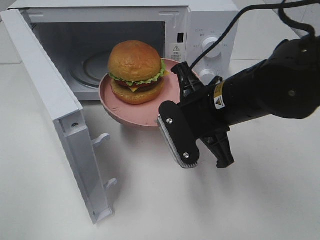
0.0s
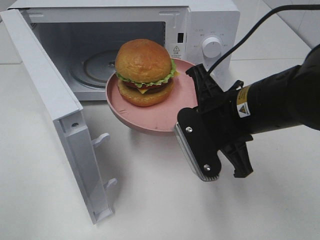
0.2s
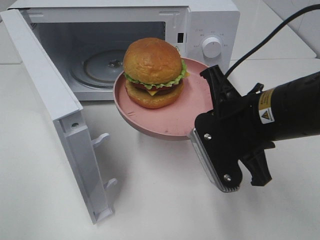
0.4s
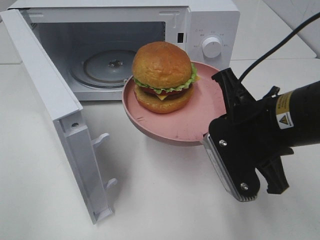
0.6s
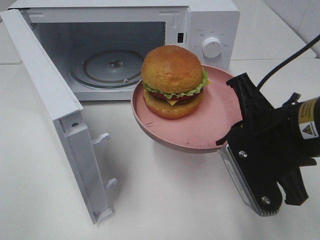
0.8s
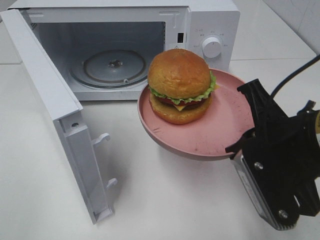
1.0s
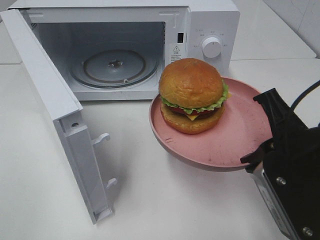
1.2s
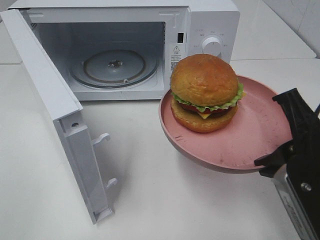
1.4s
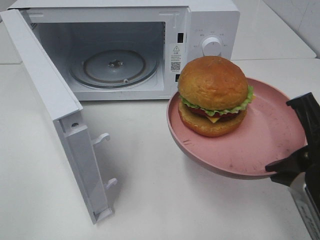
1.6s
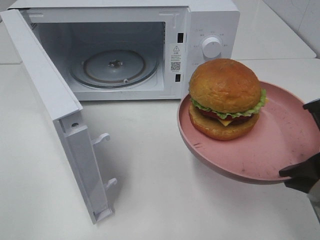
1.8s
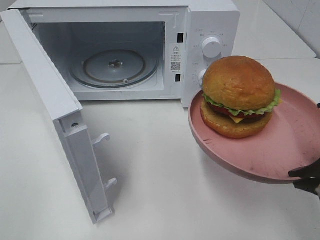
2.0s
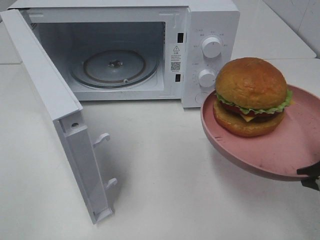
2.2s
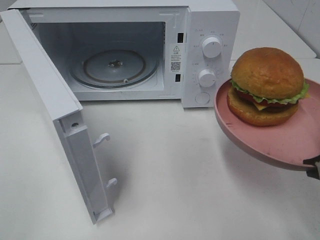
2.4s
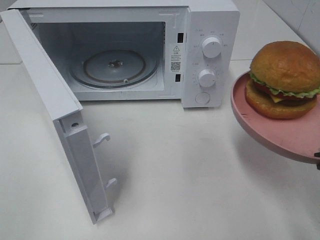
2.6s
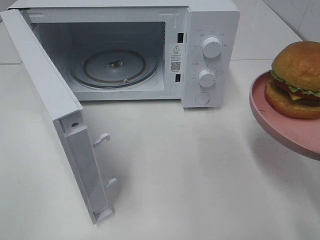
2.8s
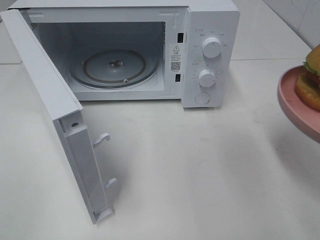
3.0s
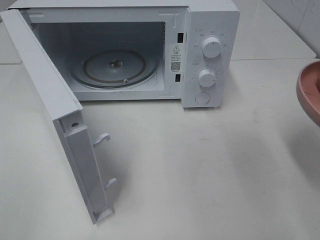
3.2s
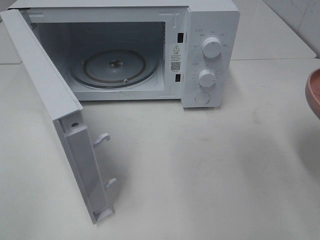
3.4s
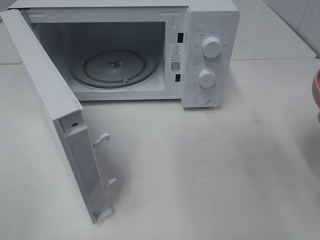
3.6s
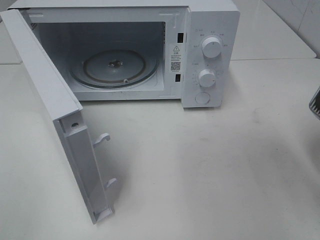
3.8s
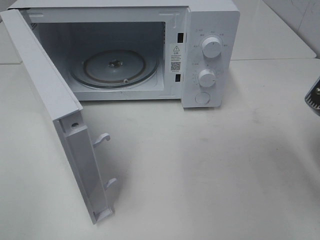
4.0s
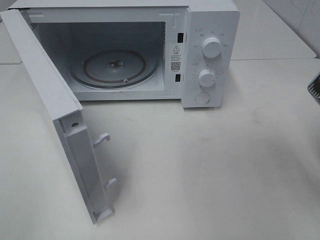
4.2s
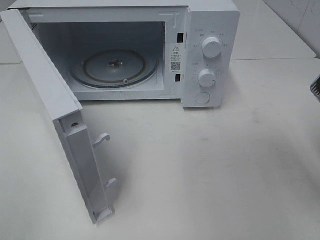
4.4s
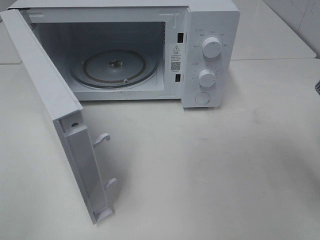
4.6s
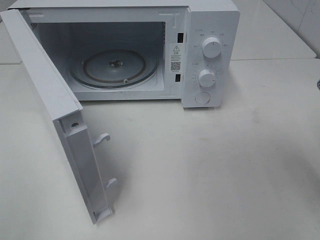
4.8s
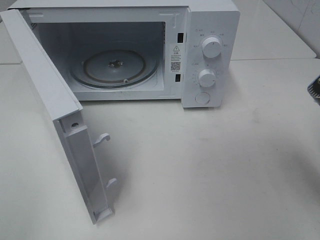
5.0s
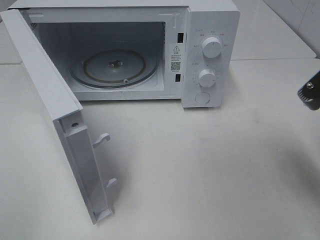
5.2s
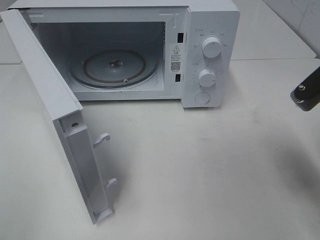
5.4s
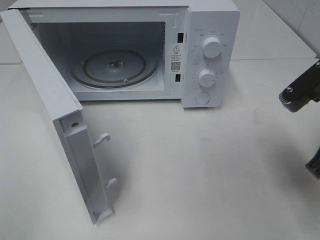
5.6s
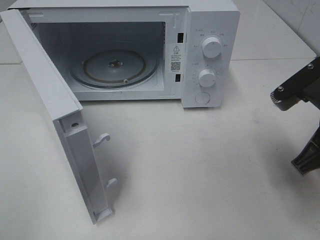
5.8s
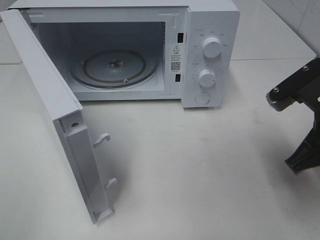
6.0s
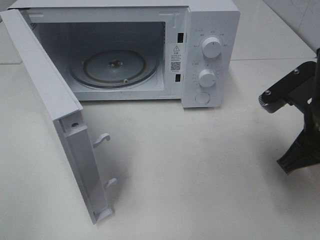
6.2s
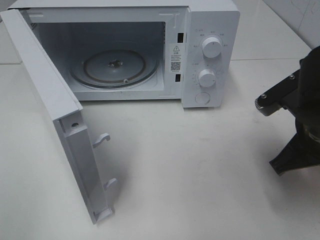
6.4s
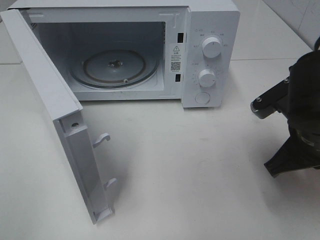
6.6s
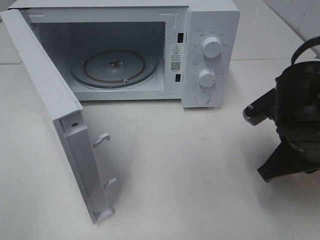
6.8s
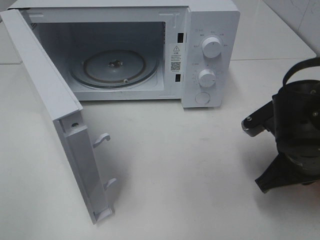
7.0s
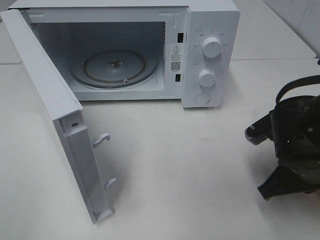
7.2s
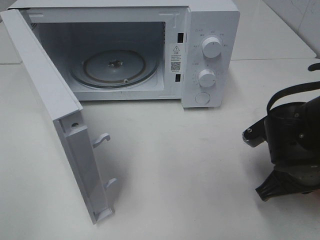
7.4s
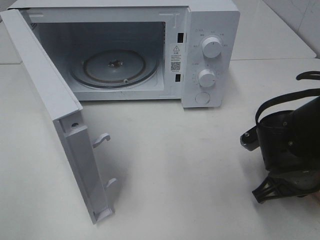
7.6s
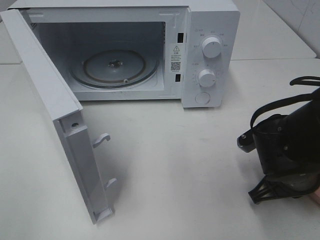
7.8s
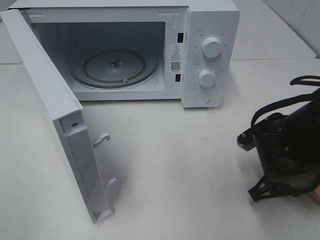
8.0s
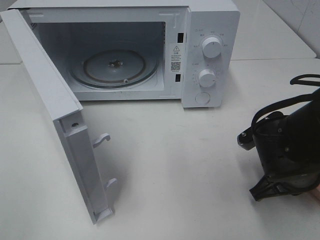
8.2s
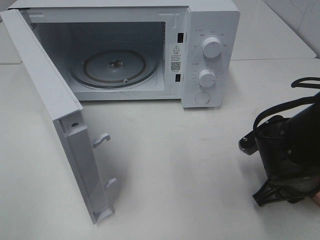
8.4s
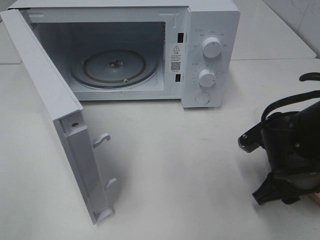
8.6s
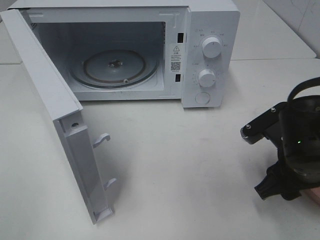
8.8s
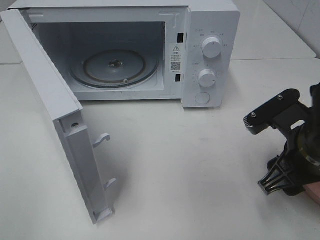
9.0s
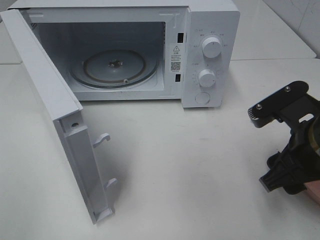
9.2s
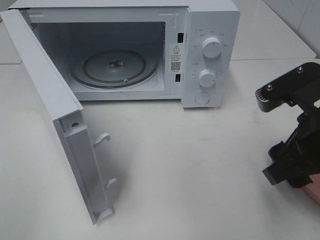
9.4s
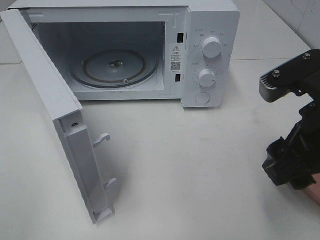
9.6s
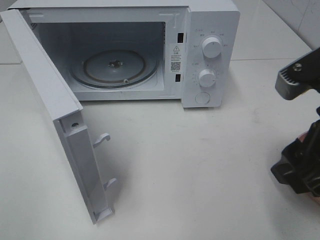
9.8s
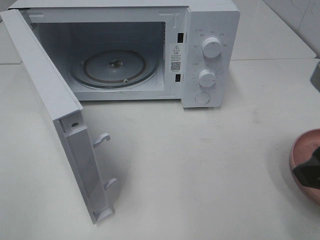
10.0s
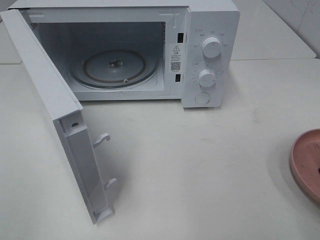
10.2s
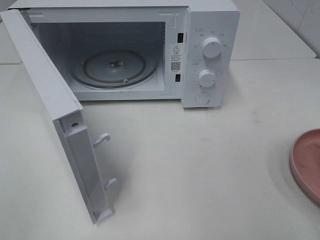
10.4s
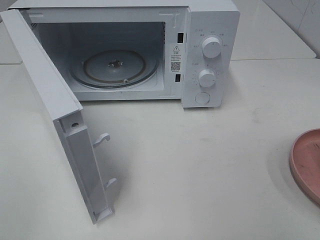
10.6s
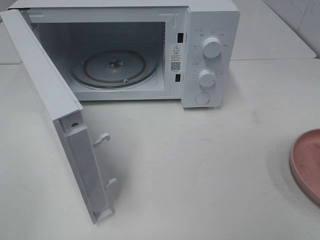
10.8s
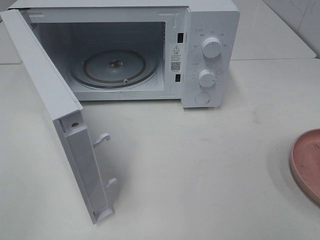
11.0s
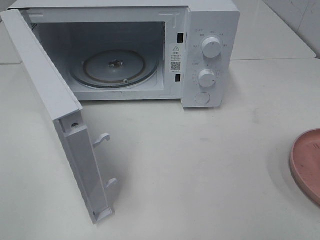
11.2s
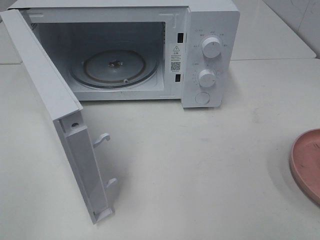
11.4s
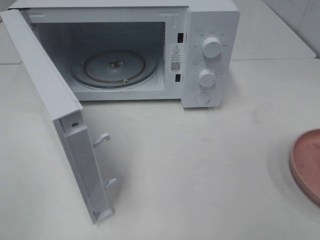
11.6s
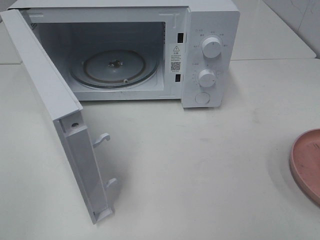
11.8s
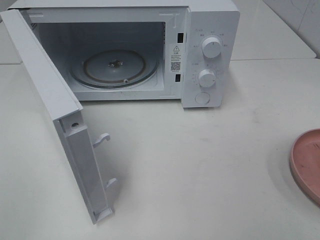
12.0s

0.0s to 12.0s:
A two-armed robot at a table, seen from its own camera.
Task of the whole recording: Heat the burger.
Step, 0.0s to 8.4s: Right hand: place the plate on the table.
0.0s to 1.6s: The right gripper heads backward and to the right, covering roughly 15 cm.
1.6s to 3.0s: The right gripper moves some 5 cm.
4.4s to 6.0s: The right gripper heads downward, covering some 5 cm.
6.0s to 7.6s: The right gripper shifts about 10 cm downward.
7.6s to 9.0s: The right gripper travels upward by approximately 5 cm, and opens its fingers.
9.0s to 10.4s: The right gripper goes approximately 20 cm upward, backward and to the right.

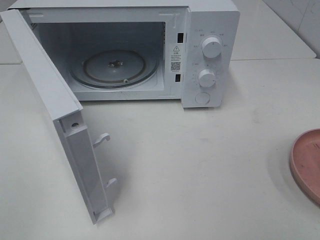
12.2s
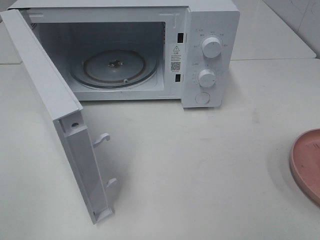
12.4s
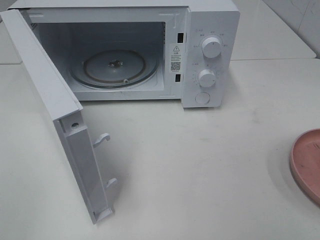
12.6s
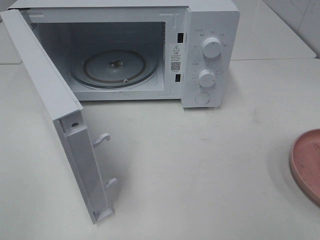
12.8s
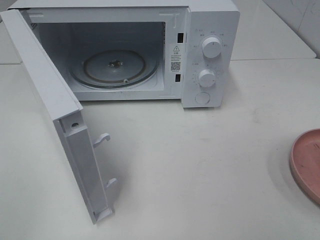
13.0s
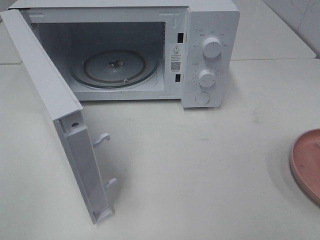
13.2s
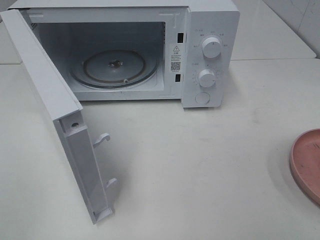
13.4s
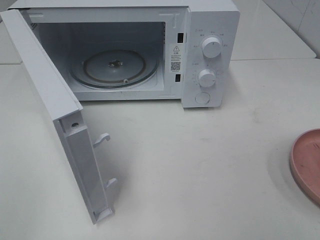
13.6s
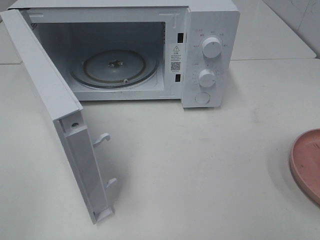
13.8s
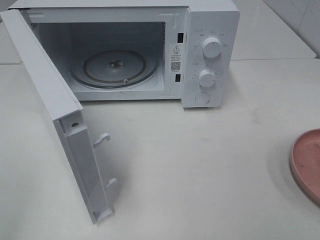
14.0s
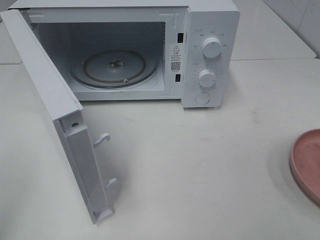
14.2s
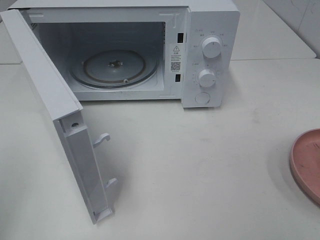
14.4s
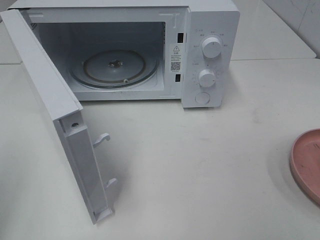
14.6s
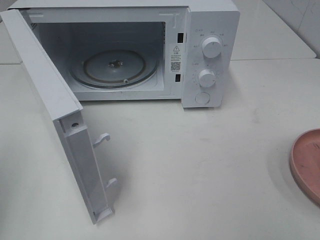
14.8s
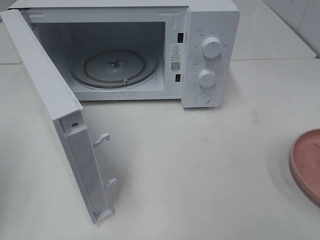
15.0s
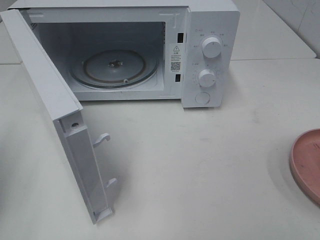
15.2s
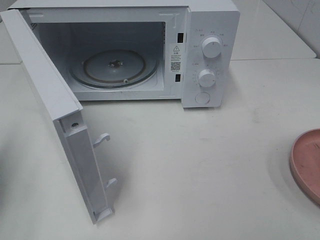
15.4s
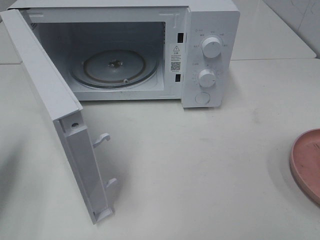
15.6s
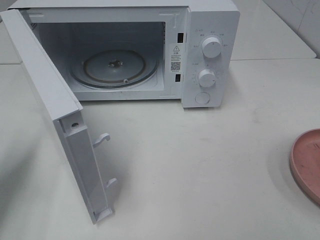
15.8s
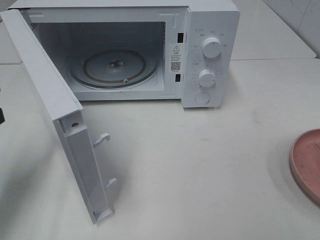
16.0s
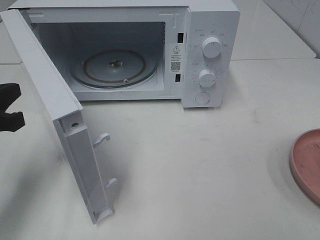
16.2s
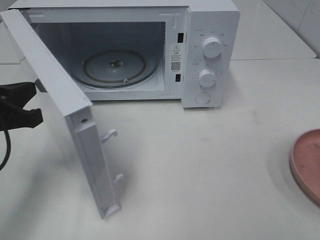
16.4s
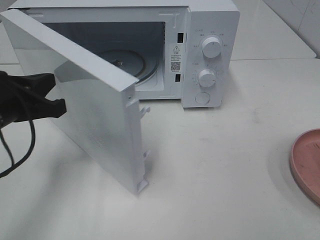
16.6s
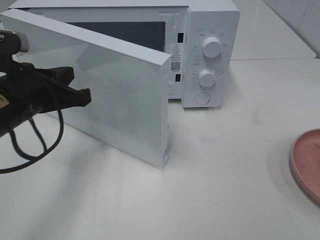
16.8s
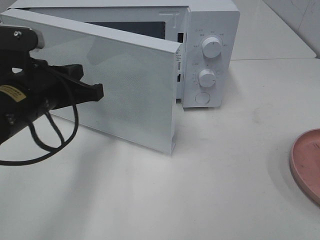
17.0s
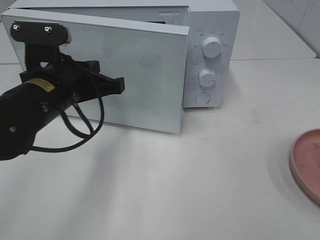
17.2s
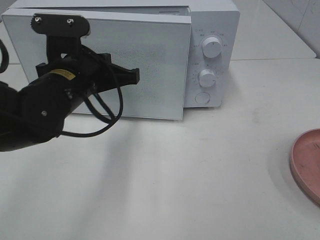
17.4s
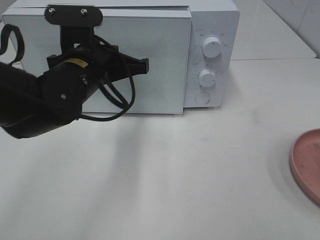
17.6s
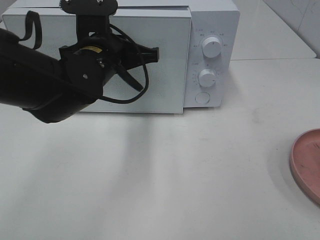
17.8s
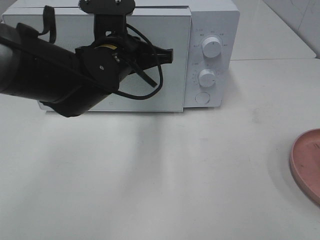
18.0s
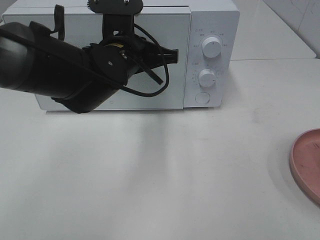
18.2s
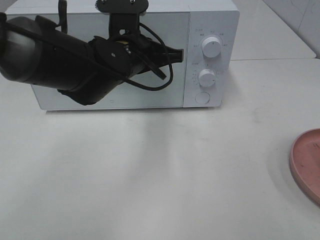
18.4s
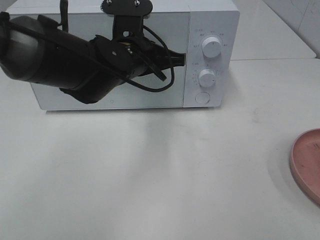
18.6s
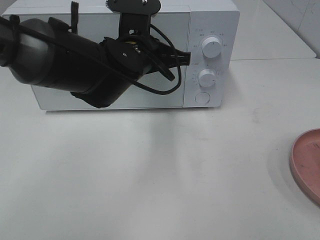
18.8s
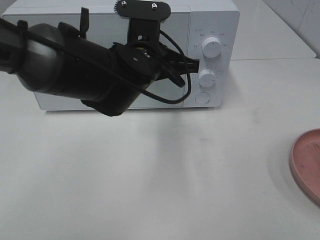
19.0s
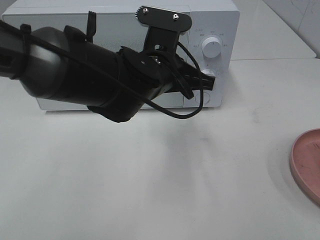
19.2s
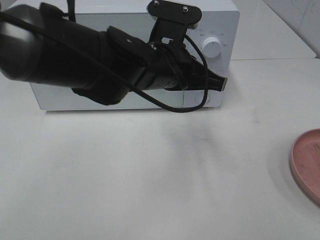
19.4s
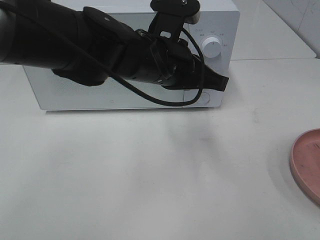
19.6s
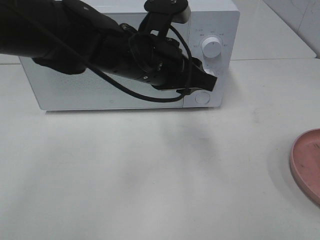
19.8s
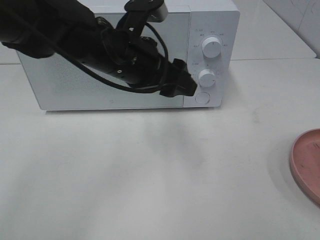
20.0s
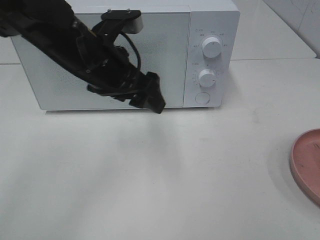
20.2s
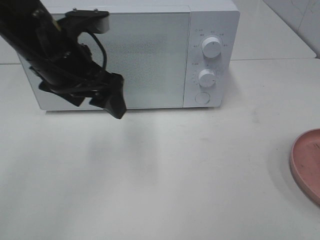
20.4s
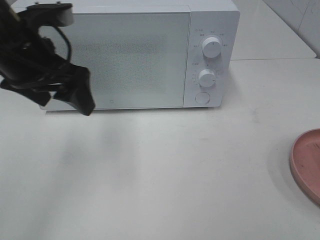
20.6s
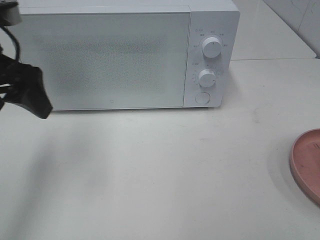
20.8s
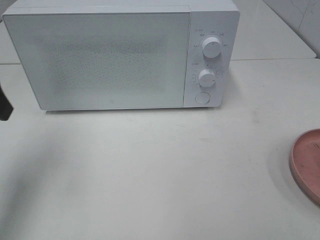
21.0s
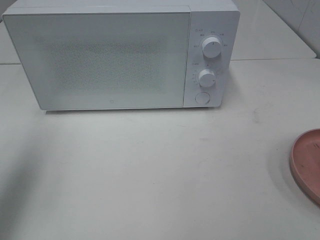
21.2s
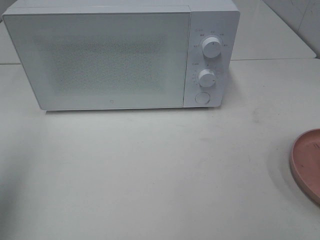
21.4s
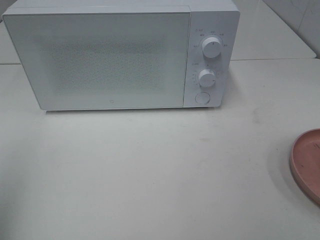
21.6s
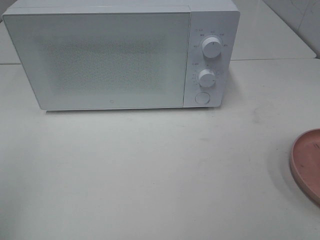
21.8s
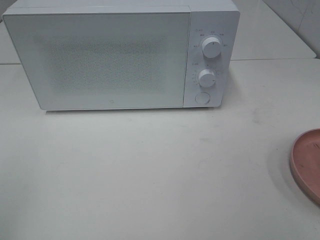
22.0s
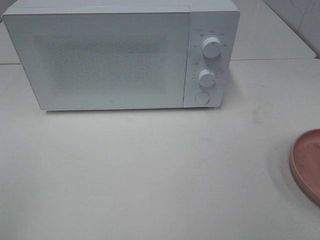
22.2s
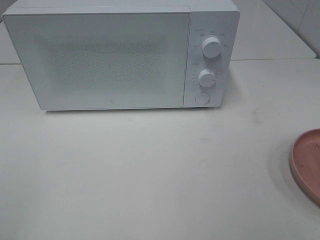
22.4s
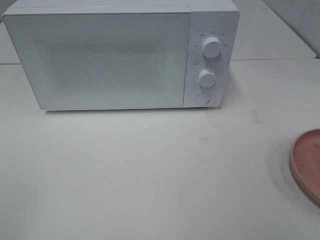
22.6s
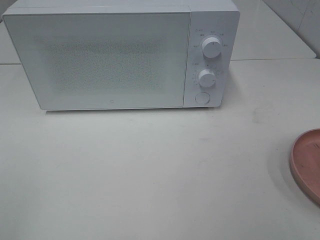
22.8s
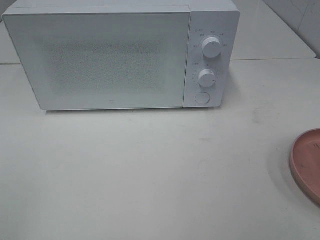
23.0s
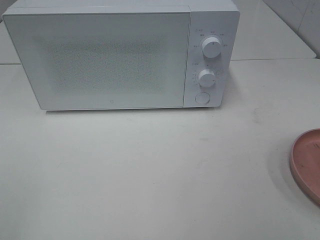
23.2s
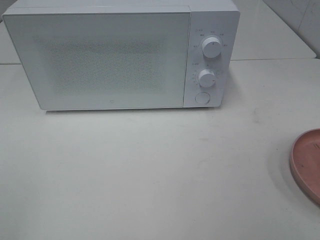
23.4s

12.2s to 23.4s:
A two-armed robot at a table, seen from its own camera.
Task of the whole recording: Heat the burger.
Step, 12.2s to 19.2s: Left hand: close the microwave door.
12.2s to 13.8s: Both grippers stay put.
13.8s to 15.4s: The left gripper goes about 20 cm forward, and closes its fingers.
15.4s to 17.0s: The left gripper travels to the right and forward by about 20 cm.
17.0s to 18.6s: The left gripper moves to the right and forward, approximately 15 cm.
18.6s to 20.2s: The left gripper travels to the left by some 5 cm, and opens.
20.2s to 21.8s: The left gripper heads backward and to the left, covering approximately 35 cm.
